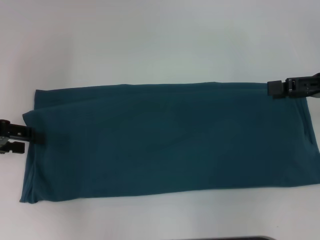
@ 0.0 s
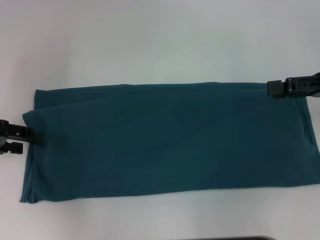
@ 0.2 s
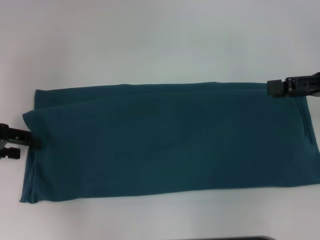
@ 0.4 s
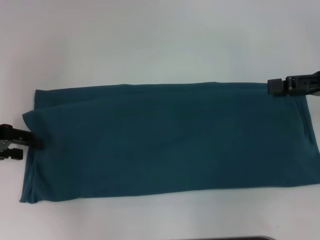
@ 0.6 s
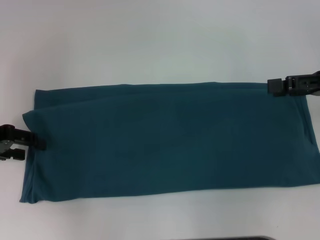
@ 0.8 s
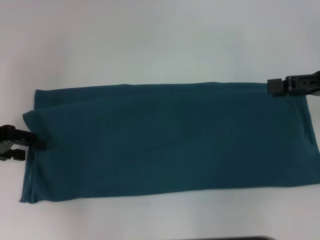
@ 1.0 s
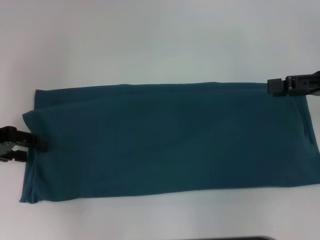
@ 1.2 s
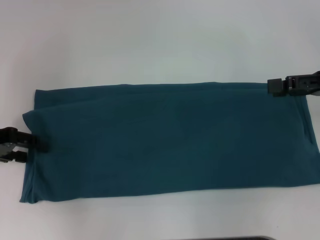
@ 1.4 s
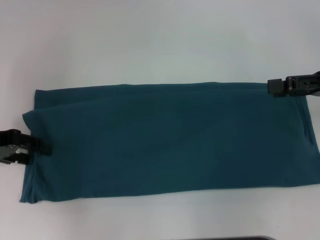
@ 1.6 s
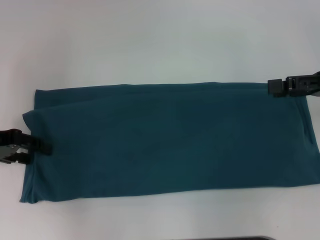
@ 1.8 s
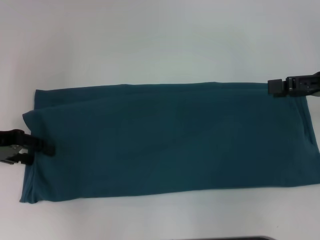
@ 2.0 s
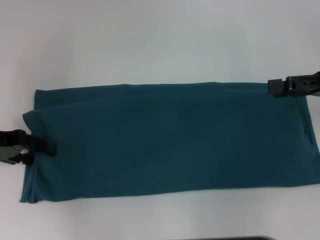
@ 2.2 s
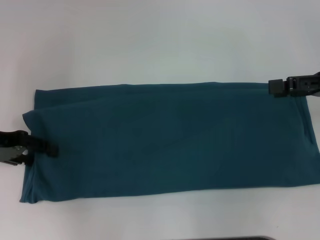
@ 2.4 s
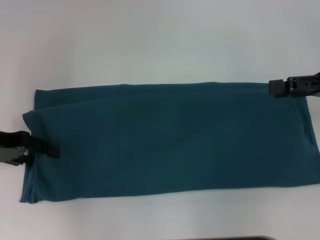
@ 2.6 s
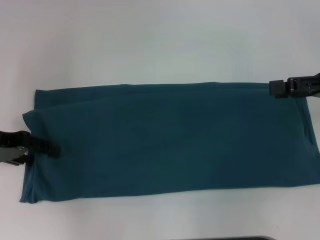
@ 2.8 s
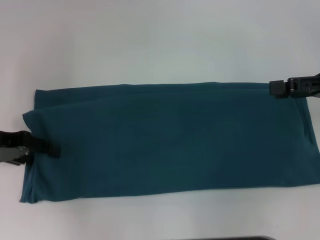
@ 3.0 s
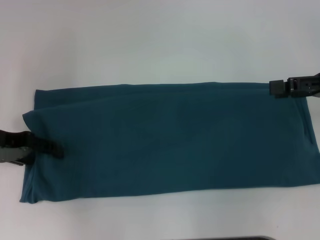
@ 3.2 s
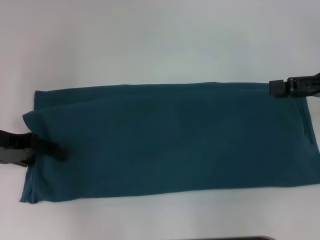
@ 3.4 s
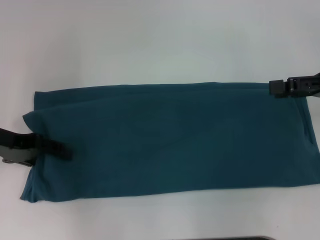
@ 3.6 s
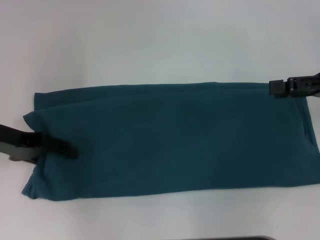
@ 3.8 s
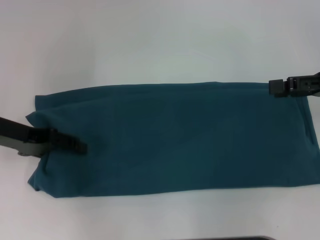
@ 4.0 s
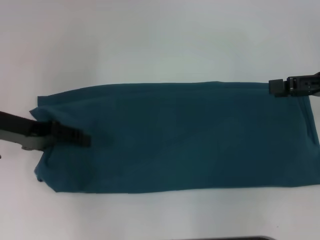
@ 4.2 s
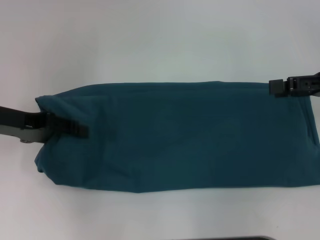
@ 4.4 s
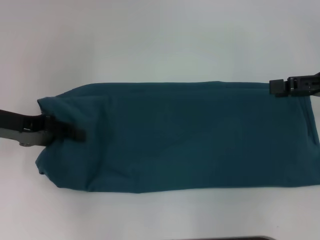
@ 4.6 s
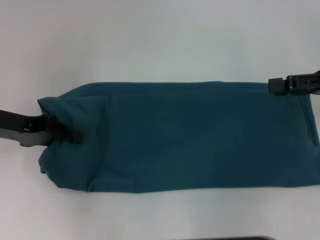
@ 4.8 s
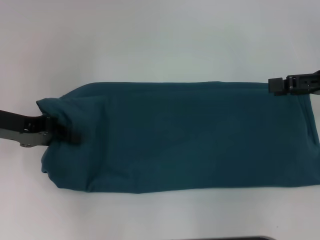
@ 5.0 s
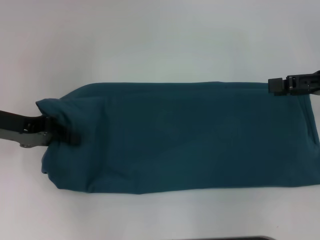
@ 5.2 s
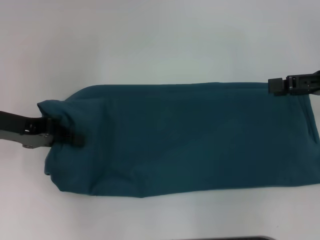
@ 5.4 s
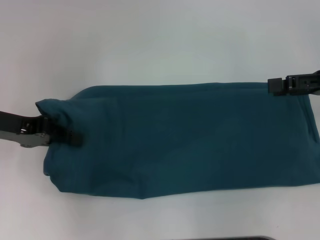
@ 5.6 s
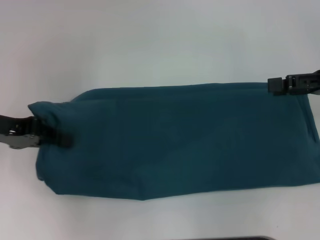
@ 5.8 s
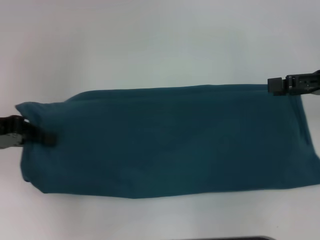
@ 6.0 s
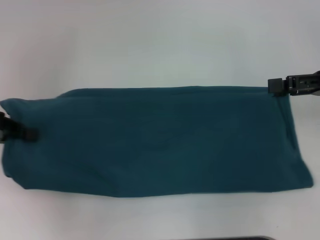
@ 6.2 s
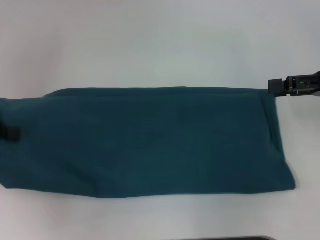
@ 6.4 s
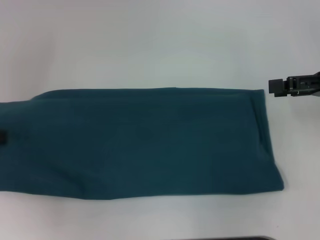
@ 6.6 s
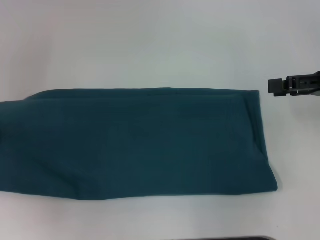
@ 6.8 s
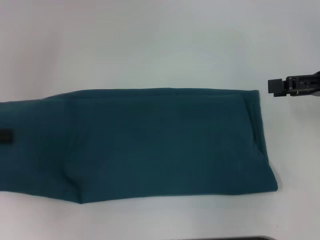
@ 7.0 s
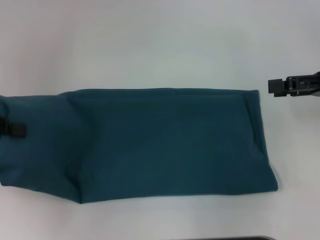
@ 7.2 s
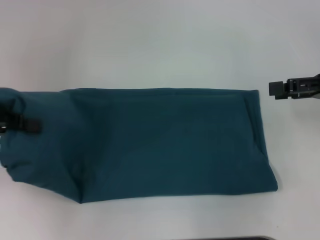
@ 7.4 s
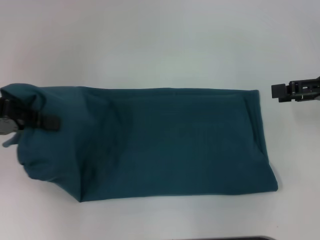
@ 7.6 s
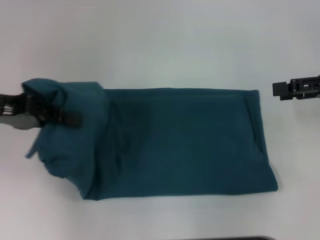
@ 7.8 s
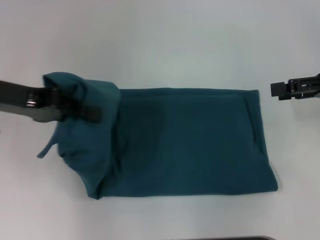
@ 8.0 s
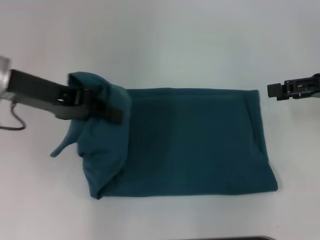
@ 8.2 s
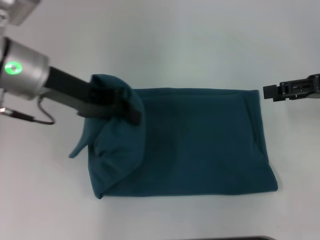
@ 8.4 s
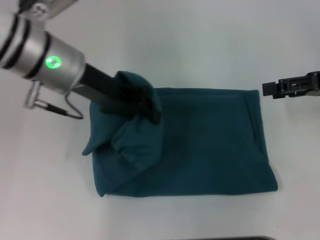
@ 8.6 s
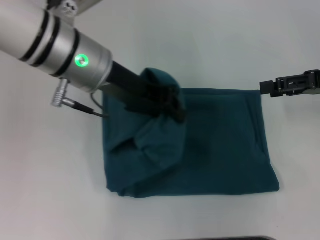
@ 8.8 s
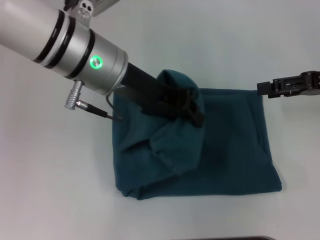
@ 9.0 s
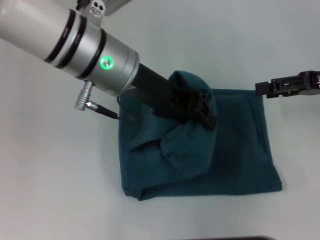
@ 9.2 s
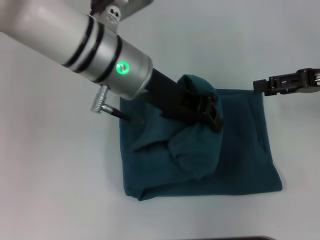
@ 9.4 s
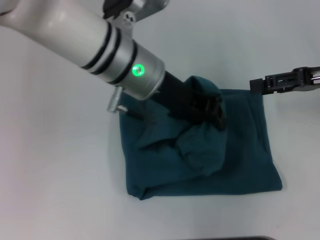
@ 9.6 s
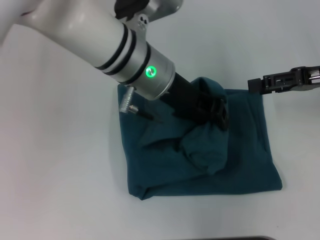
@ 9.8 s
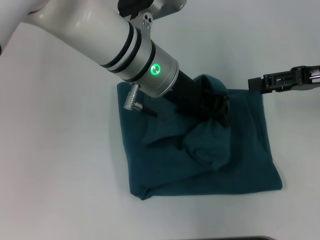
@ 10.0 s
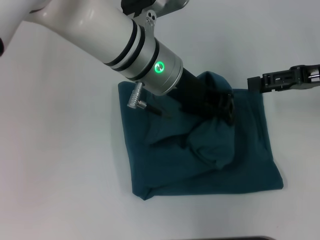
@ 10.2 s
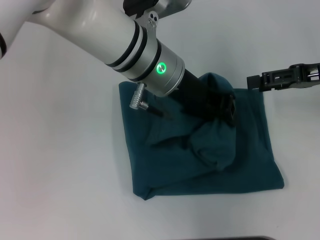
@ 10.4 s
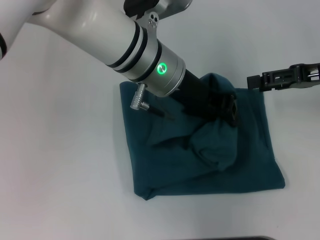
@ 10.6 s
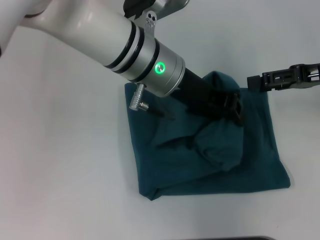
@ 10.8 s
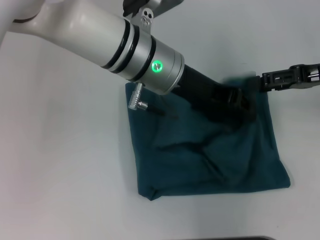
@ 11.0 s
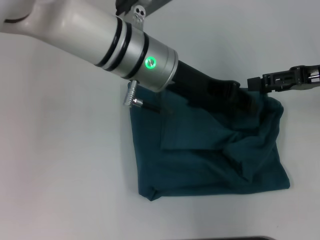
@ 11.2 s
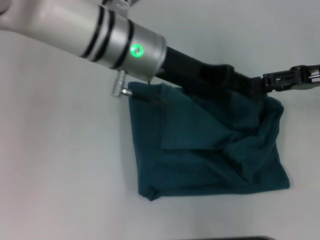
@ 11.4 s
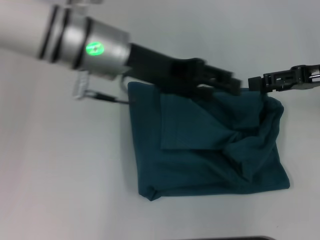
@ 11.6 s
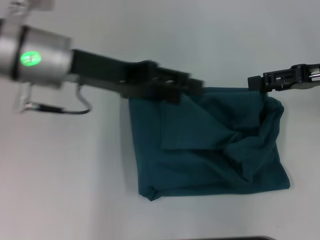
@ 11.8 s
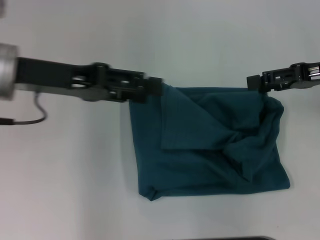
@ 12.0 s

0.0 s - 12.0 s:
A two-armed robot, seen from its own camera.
Step, 0.0 s - 11.6 s: Fold the clothes to the left.
0.0 s - 1.6 s: The grippers stay close to where they were, moving slightly.
1.6 s - 3.0 s: Both grippers stay about where they are.
3.0 s - 4.4 s: The grippers move only a little.
4.4 s - 6.0 s: The left gripper closes.
7.6 s - 9.0 s: The left gripper moves to the right, about 20 cm.
9.0 s - 10.4 s: The left gripper travels to the right by roughly 5 cm.
10.4 s - 12.0 s: The left gripper is displaced to the left by some 20 cm, and opens.

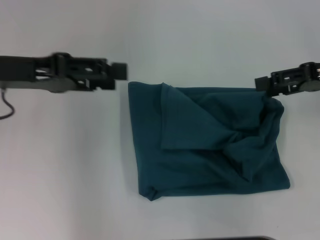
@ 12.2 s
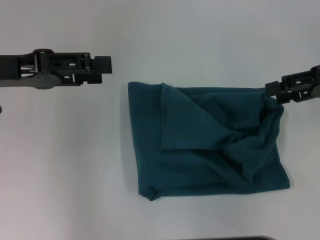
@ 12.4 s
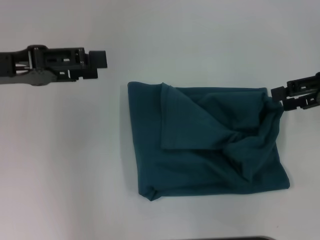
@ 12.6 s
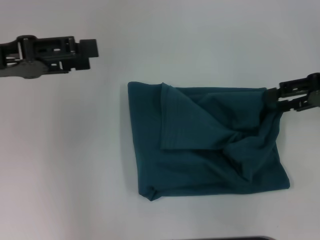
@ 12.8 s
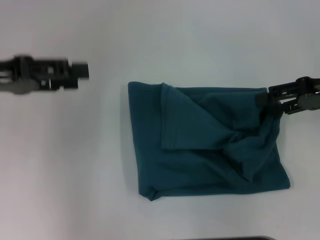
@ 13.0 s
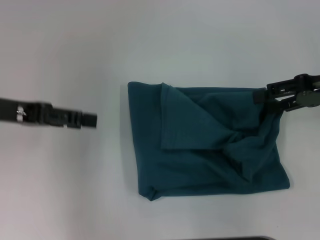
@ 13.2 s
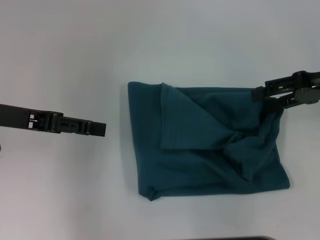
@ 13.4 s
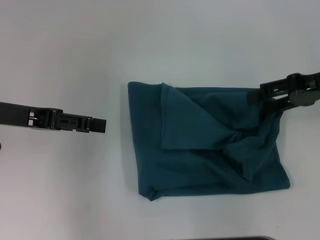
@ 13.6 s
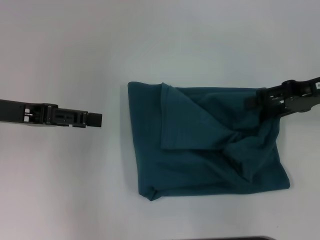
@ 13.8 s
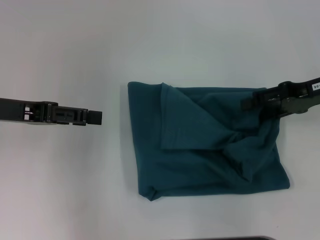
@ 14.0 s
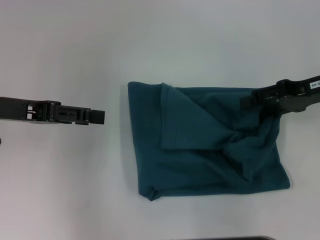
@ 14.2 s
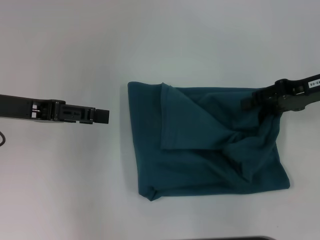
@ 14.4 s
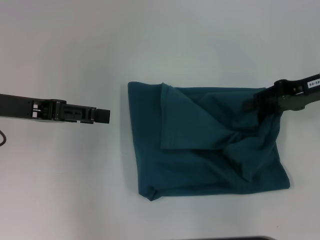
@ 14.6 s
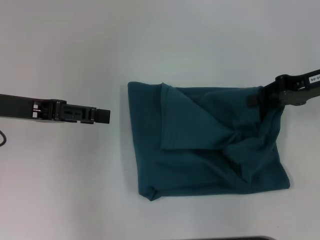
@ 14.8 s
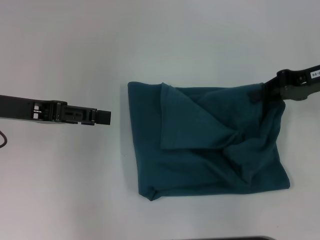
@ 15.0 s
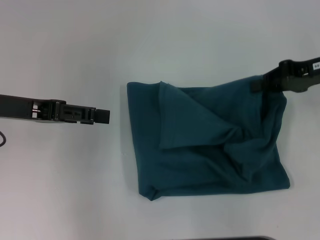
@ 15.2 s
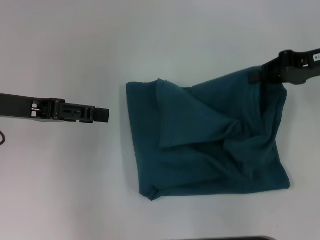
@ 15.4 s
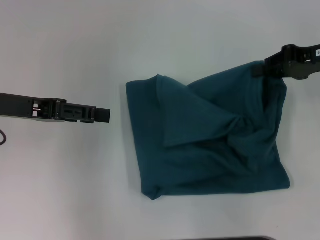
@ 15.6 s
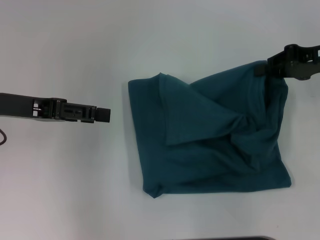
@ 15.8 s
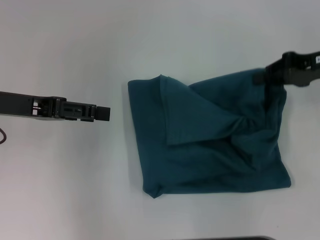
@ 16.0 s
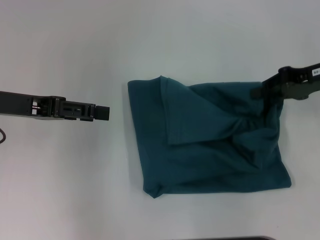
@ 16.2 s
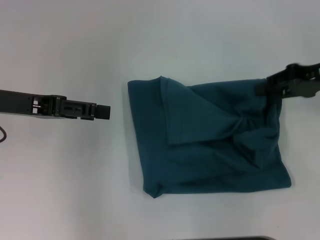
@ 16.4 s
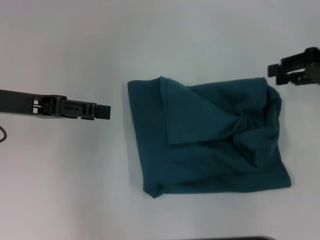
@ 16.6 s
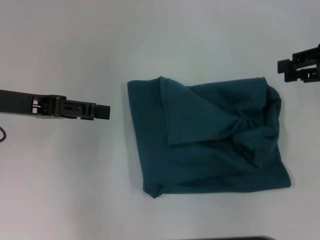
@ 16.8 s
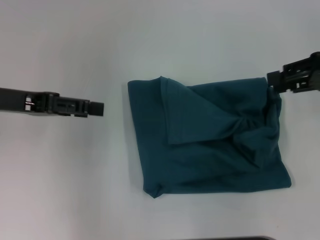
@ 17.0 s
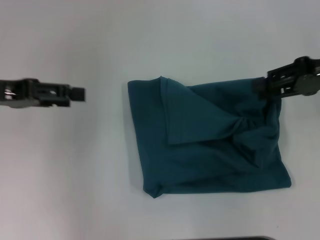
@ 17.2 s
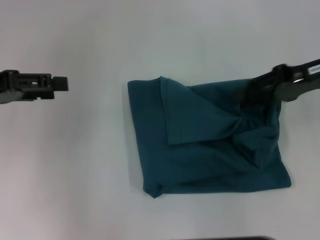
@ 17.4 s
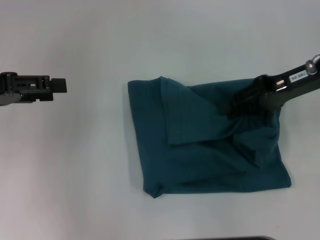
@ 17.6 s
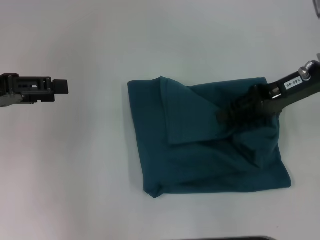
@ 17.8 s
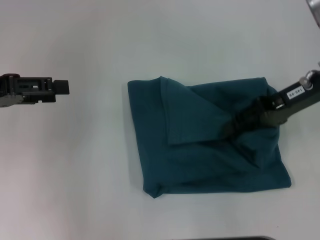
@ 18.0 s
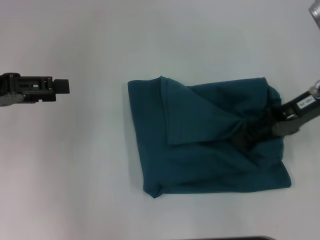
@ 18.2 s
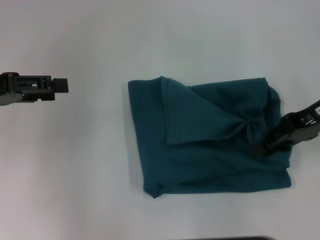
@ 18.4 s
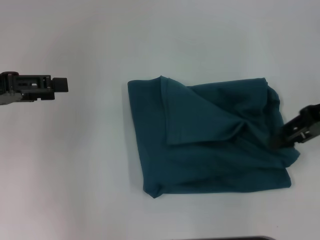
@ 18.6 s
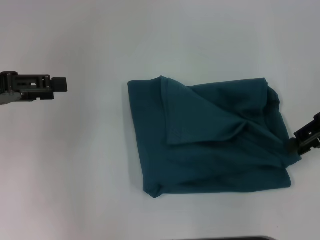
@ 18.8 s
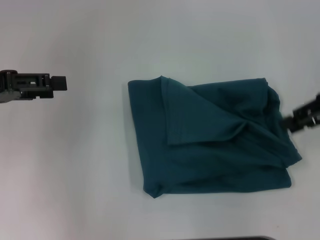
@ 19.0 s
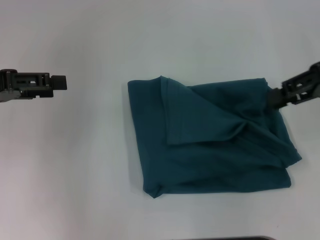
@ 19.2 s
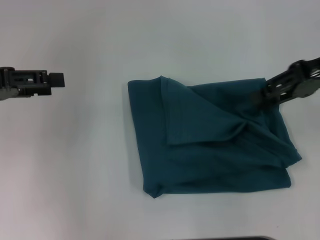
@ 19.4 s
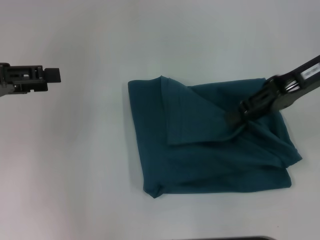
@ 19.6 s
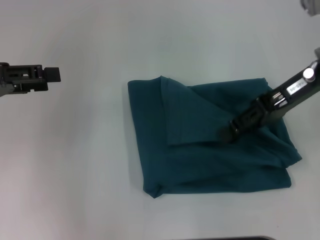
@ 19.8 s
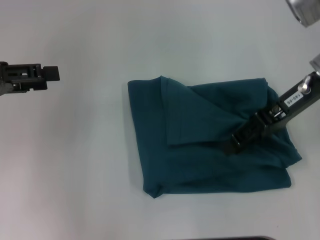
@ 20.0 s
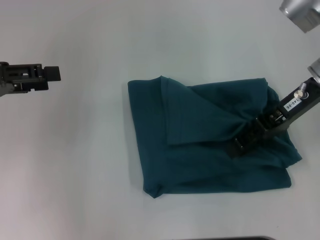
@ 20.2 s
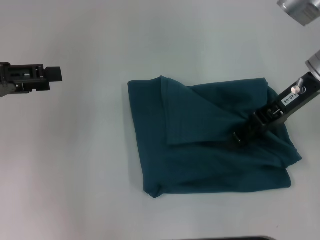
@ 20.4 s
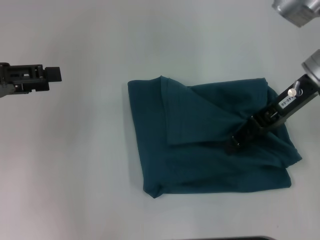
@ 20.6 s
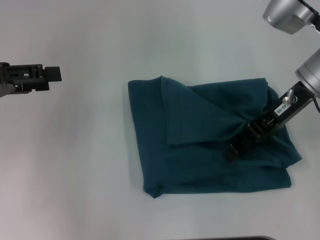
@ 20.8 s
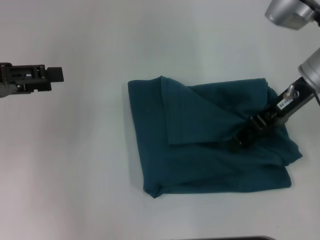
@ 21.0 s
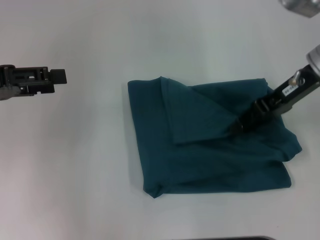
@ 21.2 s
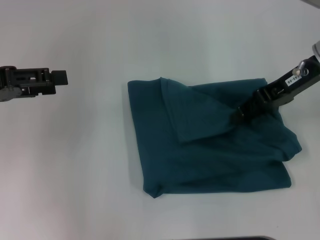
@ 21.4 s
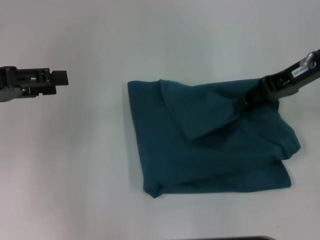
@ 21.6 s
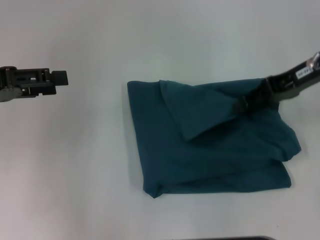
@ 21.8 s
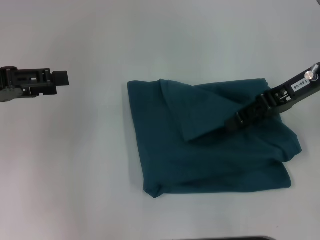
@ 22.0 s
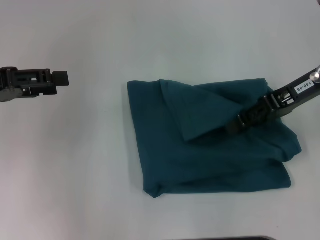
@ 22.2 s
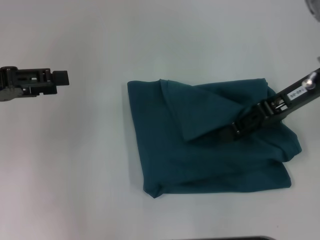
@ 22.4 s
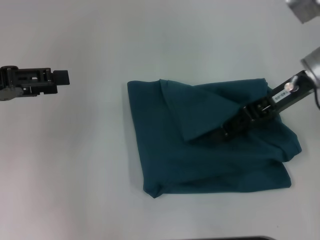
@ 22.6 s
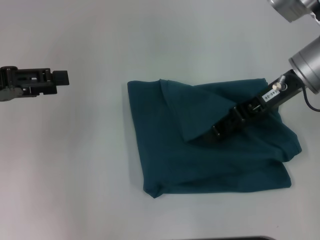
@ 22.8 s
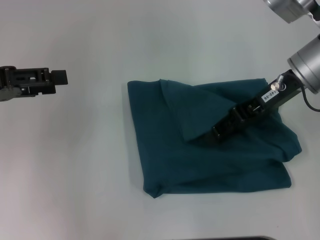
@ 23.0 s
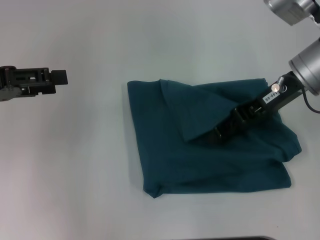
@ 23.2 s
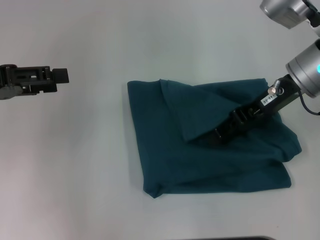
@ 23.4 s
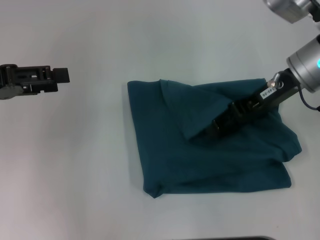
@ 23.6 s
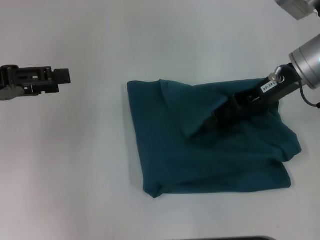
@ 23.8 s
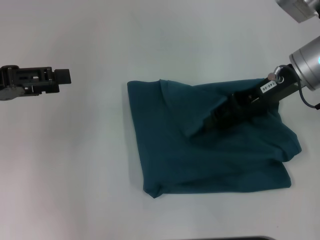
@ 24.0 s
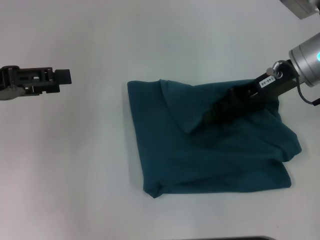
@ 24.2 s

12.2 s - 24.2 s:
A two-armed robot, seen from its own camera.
12.2 s - 13.8 s: There are only small adjustments of the grippers.
13.8 s - 15.2 s: The right gripper closes up.
15.2 s - 16.6 s: The grippers make only small movements.
16.6 s - 18.2 s: The right gripper heads to the left, covering approximately 10 cm; the left gripper moves about 5 cm.
18.2 s - 19.8 s: The right gripper ends up some 5 cm from where it was.
19.8 s - 21.2 s: The grippers move only a little.
21.2 s - 24.2 s: The grippers move only a little.
